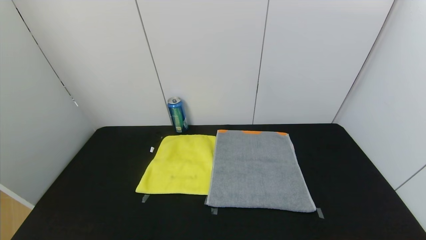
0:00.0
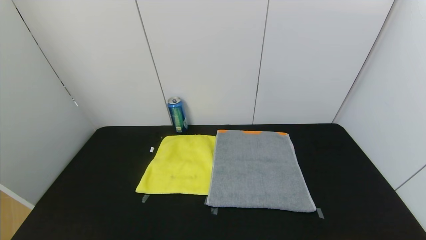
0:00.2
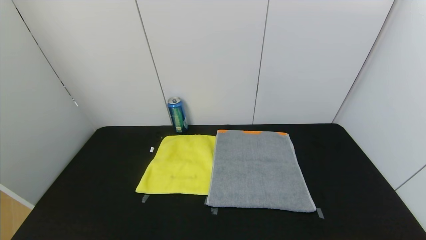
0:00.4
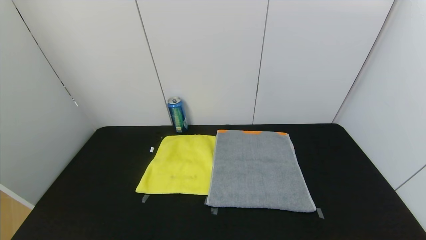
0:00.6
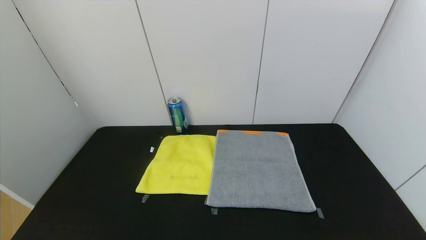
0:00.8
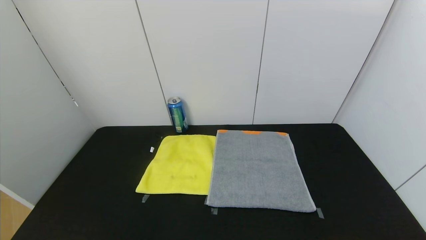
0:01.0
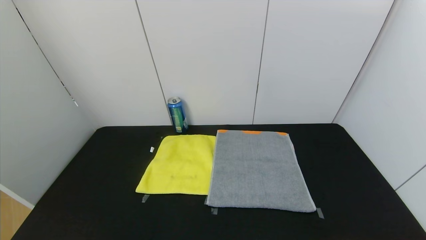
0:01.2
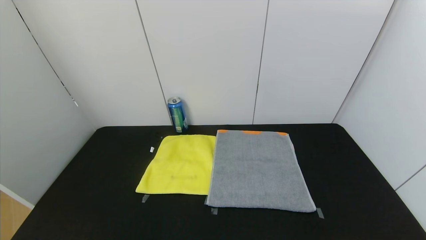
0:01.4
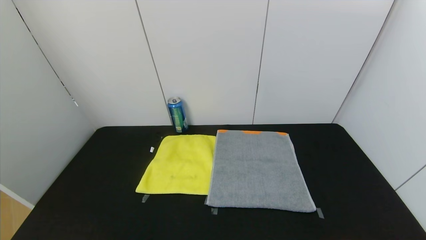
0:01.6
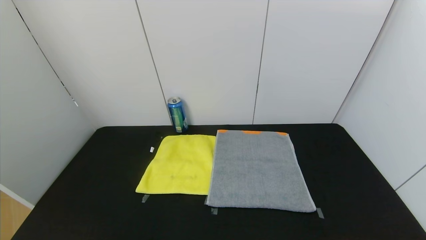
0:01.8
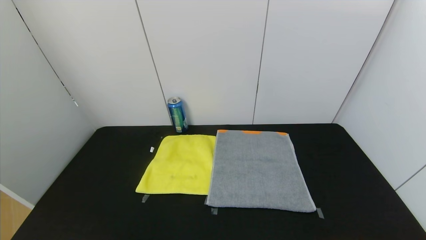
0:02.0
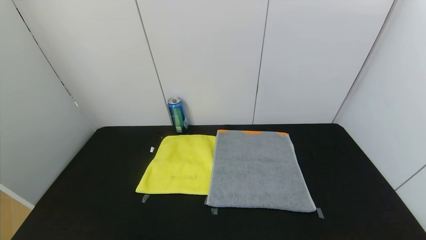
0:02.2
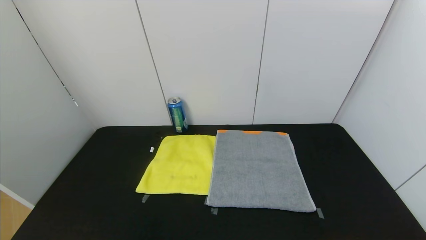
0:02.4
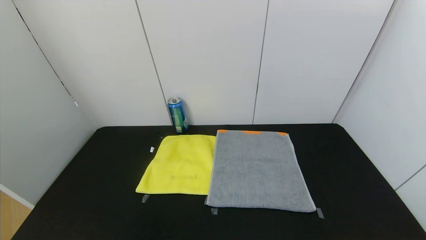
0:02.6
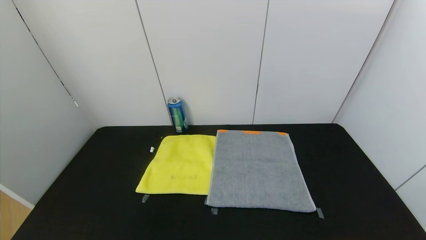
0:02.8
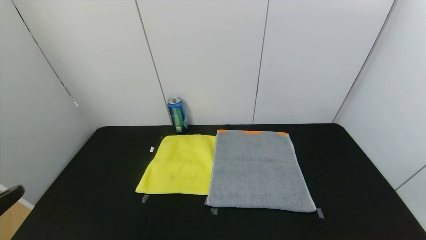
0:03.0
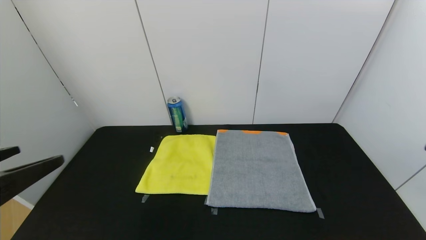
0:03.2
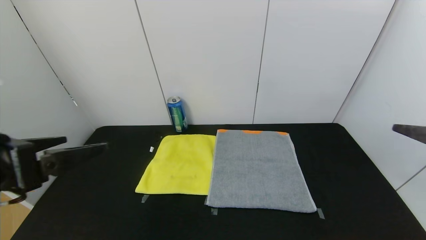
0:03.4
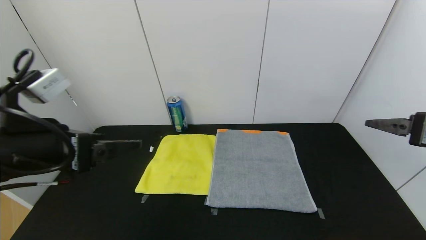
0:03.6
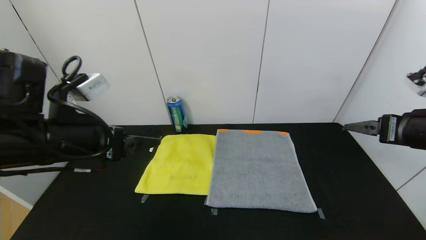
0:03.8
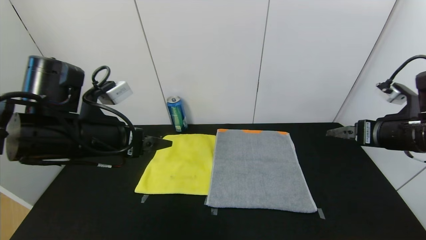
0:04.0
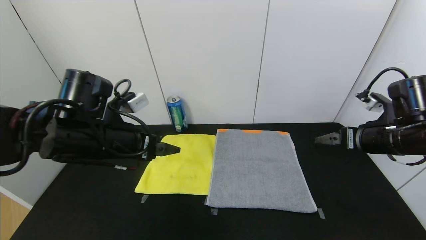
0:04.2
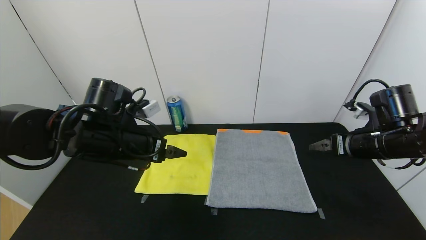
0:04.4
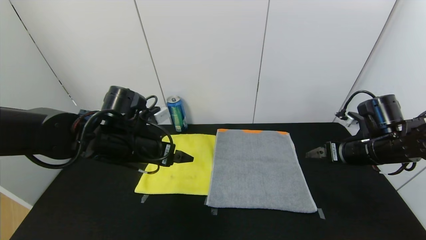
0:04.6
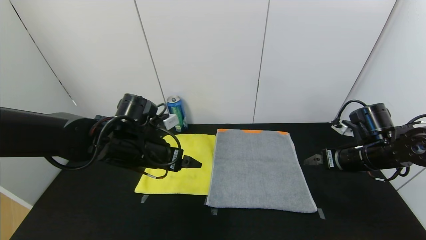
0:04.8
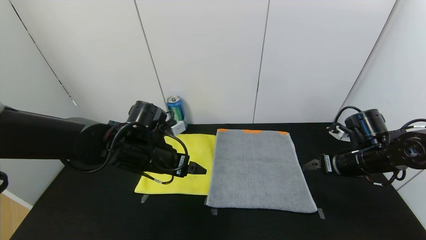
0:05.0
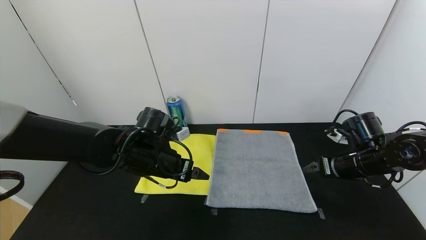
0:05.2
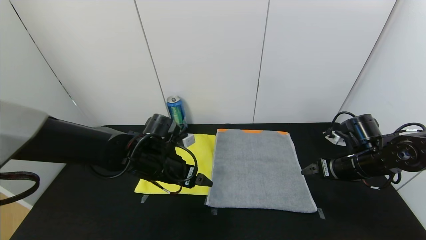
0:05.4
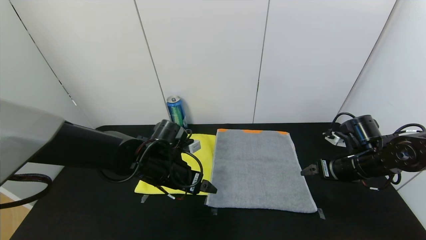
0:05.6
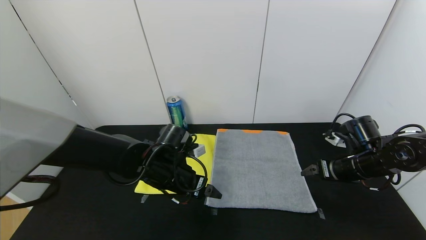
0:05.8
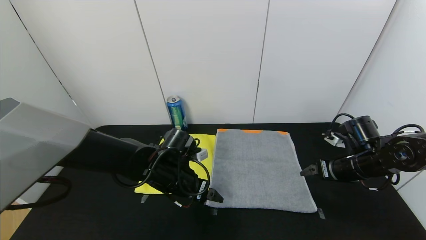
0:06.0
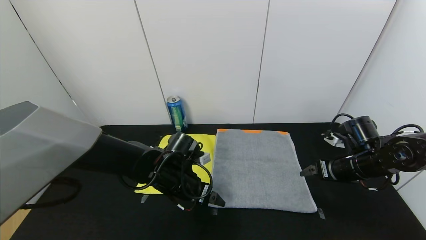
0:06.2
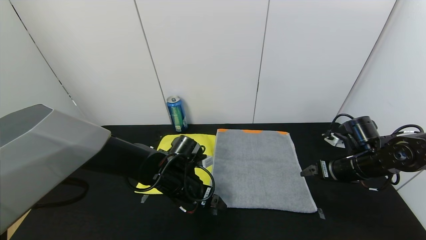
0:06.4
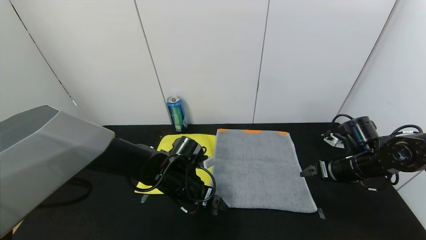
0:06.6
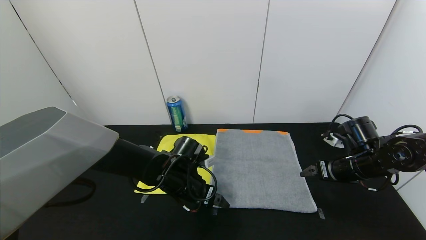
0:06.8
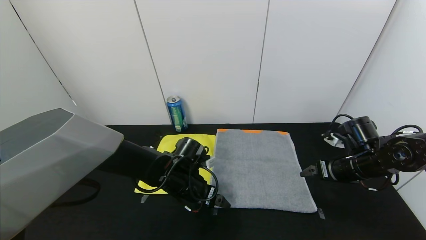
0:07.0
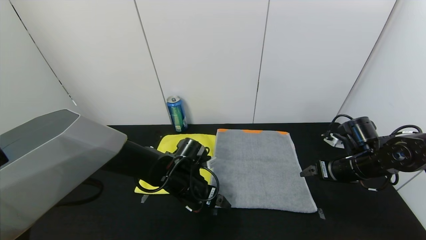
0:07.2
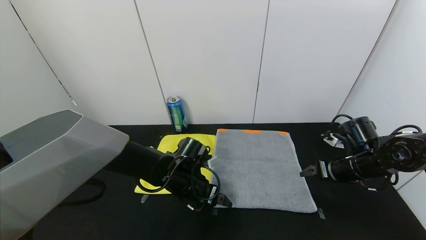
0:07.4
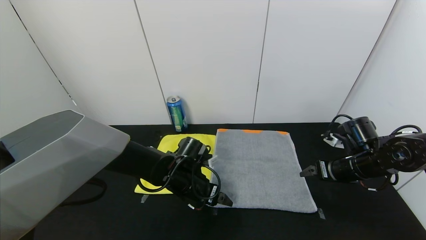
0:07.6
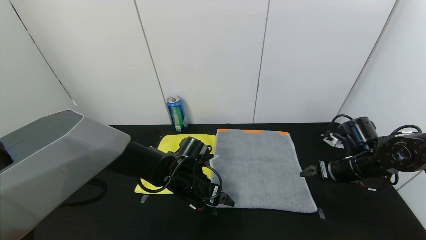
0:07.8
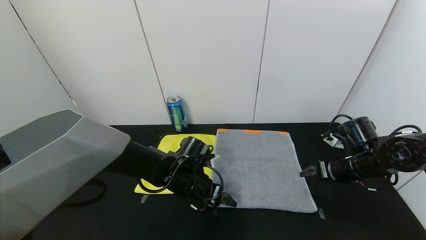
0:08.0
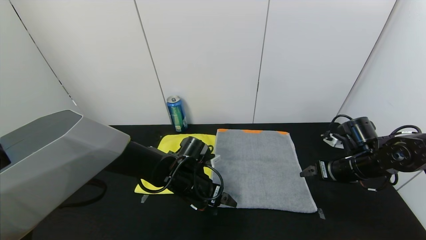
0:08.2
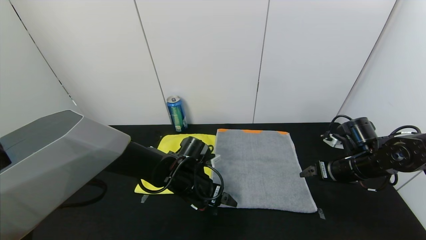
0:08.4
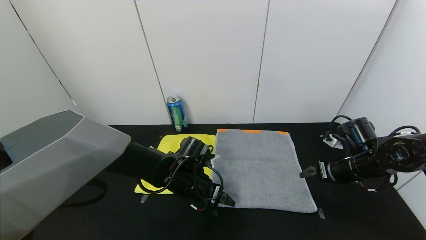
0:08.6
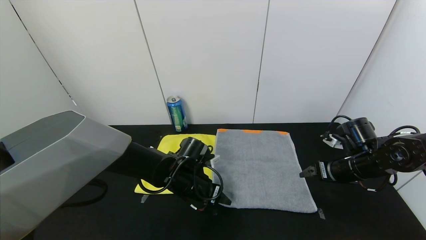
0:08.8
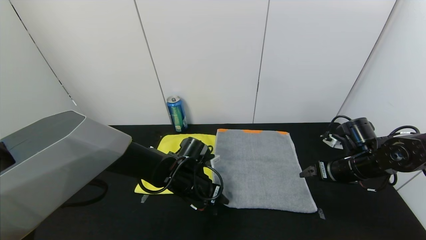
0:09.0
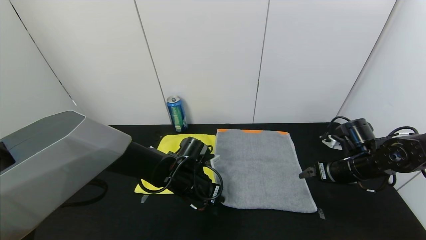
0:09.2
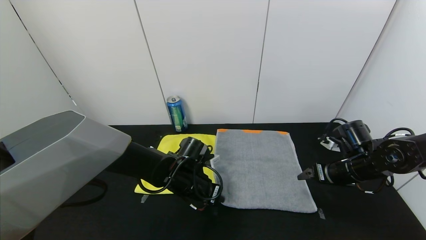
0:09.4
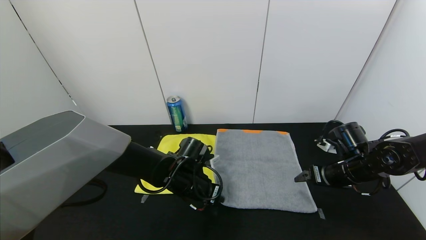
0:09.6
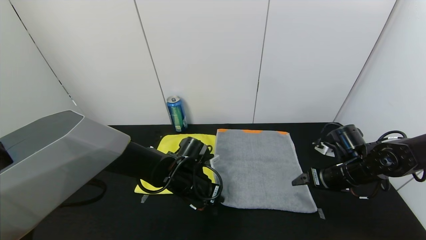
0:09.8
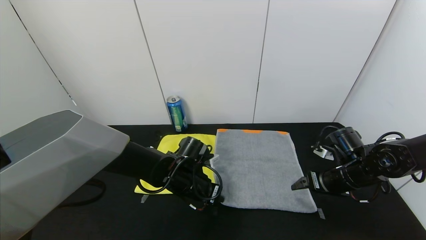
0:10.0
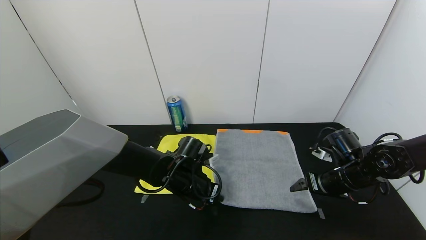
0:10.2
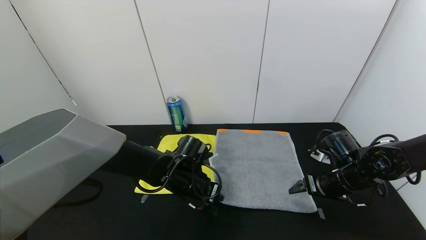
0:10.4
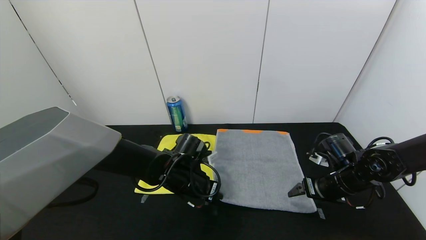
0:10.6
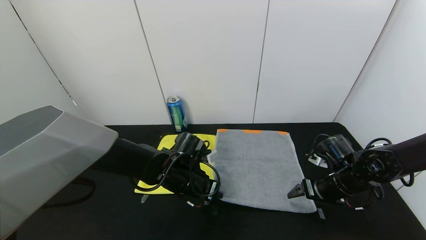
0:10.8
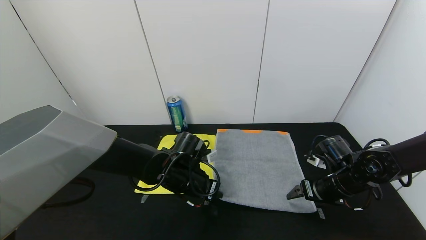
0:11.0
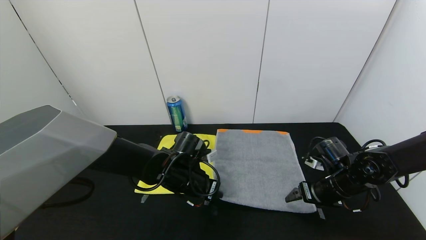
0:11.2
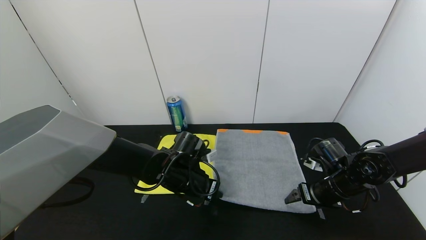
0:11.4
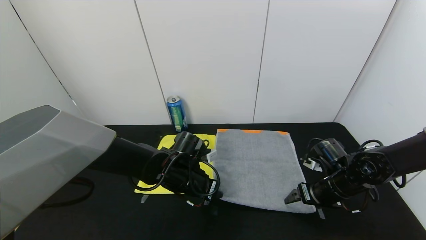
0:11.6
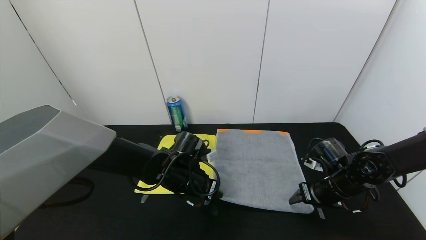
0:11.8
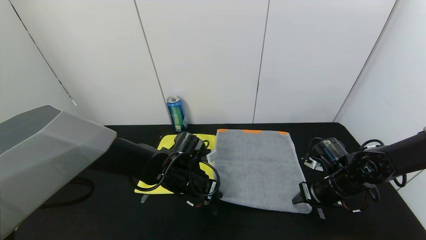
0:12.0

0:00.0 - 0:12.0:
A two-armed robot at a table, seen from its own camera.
Task of the whole recording: Use the gripper to fold the yellow towel and grey towel in half twice,then put the yellow towel on the grey towel.
0:00.0 - 0:01.6: Both grippers stay about where they are.
0:03.0 - 0:04.4: Both grippers travel together forward, roughly 25 cm.
0:04.4 - 0:06.0: The left gripper goes about 15 cm downward and to the right; the right gripper is displaced downward by some 5 cm.
0:06.0 - 0:07.6: The grippers move only a little.
0:07.6 - 0:09.0: The left gripper closes.
0:09.0 - 0:10.4: The grippers make only small movements.
0:10.4 - 0:12.0: The right gripper closes up.

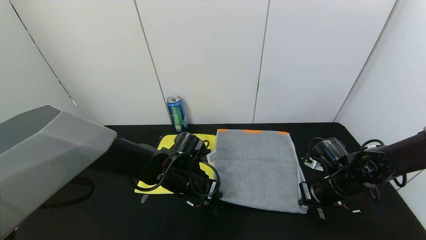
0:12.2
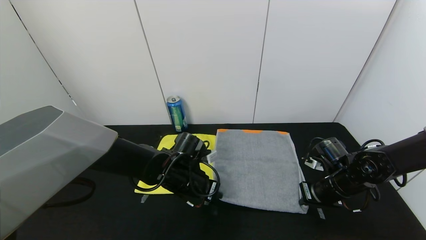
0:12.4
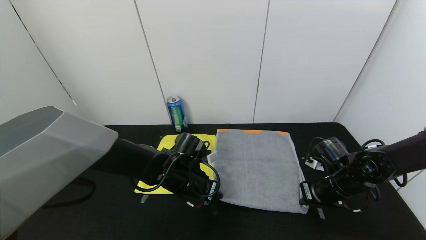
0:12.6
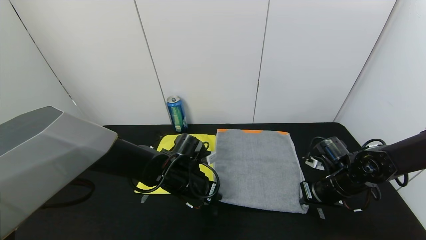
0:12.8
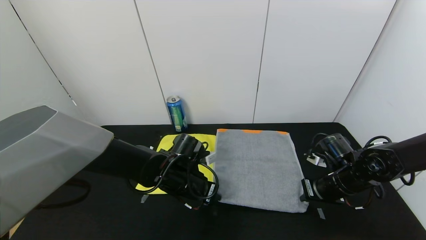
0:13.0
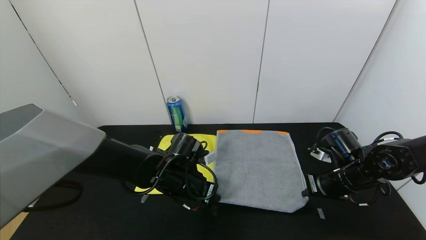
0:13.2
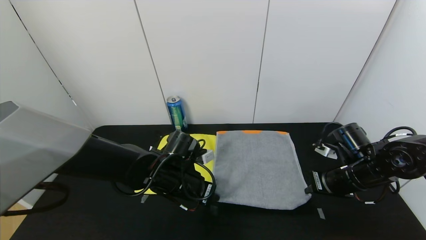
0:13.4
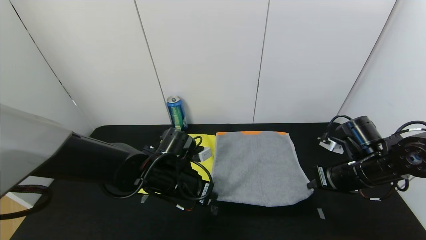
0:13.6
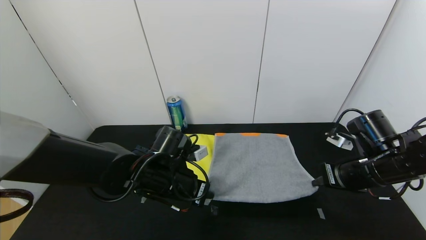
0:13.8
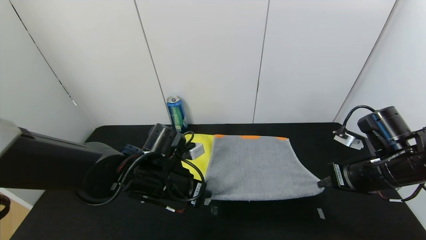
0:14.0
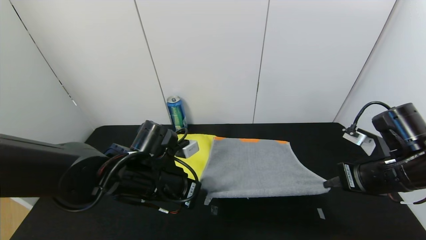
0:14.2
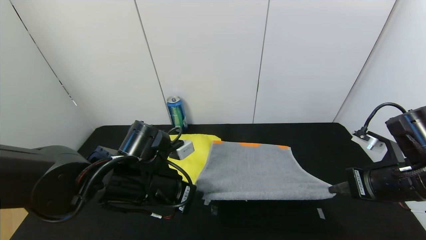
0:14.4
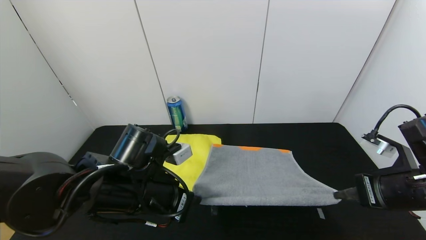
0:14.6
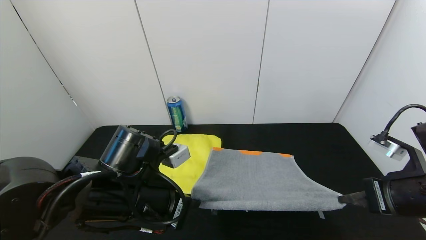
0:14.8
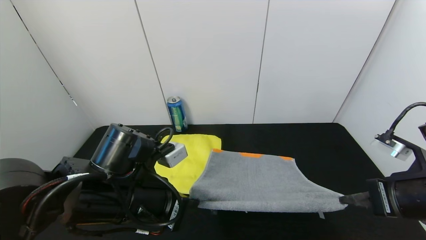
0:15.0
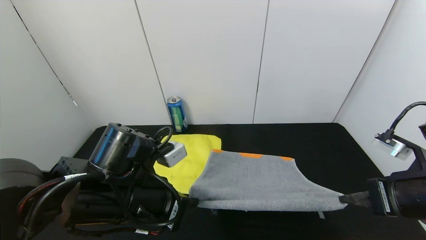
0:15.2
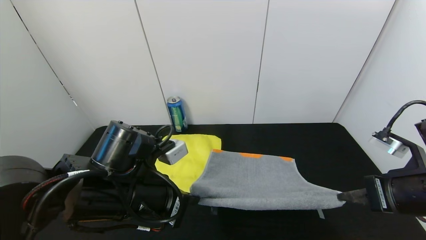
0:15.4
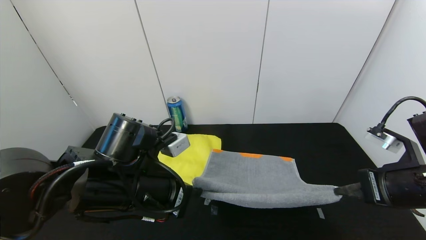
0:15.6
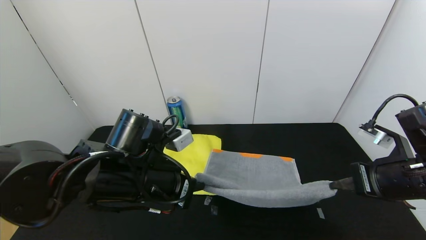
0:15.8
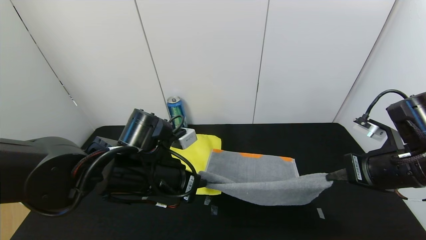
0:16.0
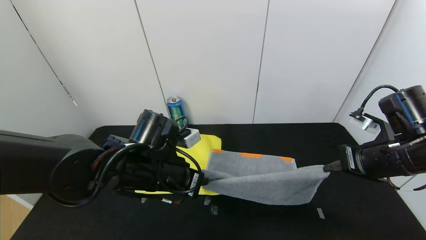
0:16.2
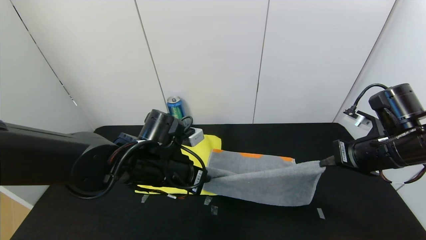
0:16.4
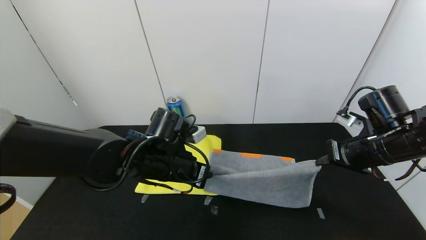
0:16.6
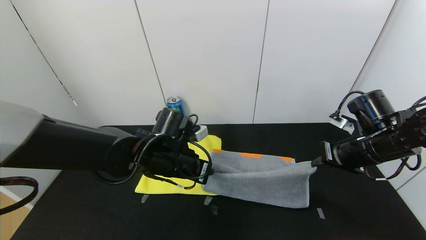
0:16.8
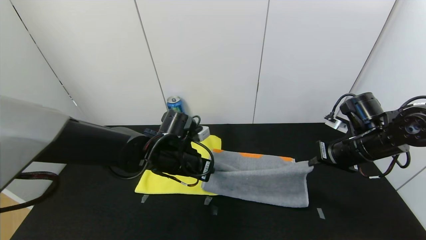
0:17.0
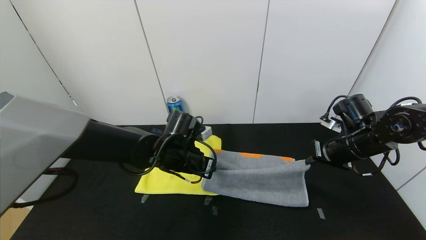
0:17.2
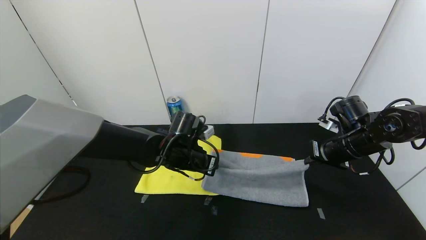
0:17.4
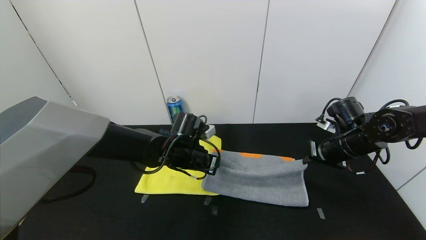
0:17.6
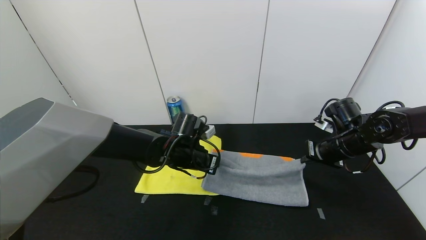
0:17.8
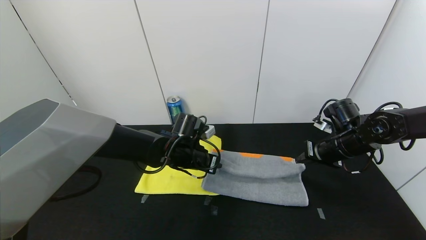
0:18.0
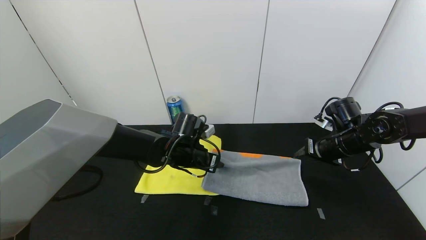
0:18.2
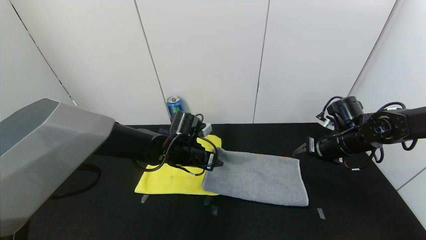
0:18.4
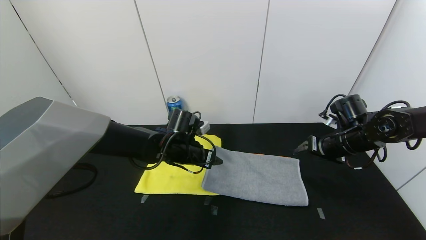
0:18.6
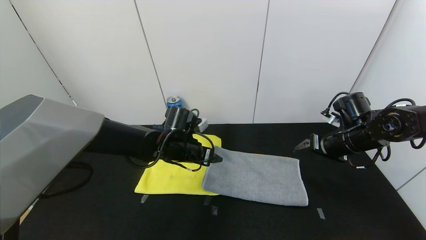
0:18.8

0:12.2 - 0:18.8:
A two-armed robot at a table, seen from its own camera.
Task of the whole recording: Use the gripper to fold the yellow towel and grey towel in half twice,then put the yellow towel on the grey towel.
Step, 0:12.2 - 0:18.6: Fold the gray towel upwards with the left gripper.
Step, 0:12.2 - 0:18.6: Fold the gray towel upwards with the right gripper.
0:12.2 - 0:13.8: The right gripper travels upward by approximately 10 cm; the left gripper shifts by roughly 5 cm.
0:13.8 - 0:15.4: The left gripper travels backward and upward by about 10 cm. The right gripper goes some 10 cm backward.
0:15.4 - 0:17.2: Both grippers move forward, roughly 15 cm.
0:17.2 - 0:18.8: The right gripper opens its fingers. The left gripper opens its fingers.
